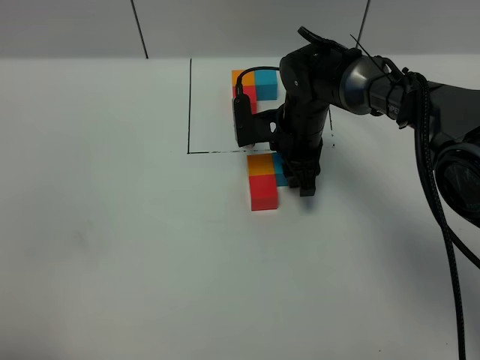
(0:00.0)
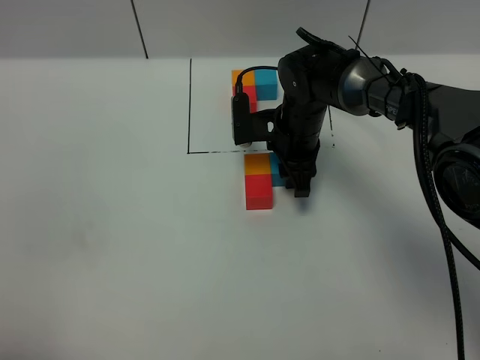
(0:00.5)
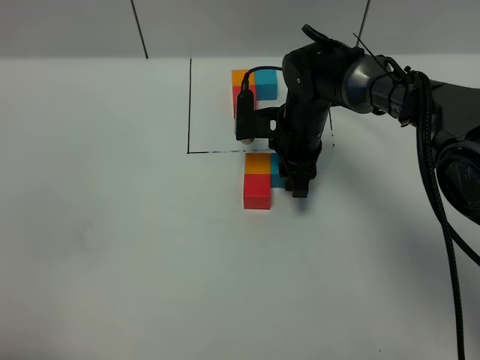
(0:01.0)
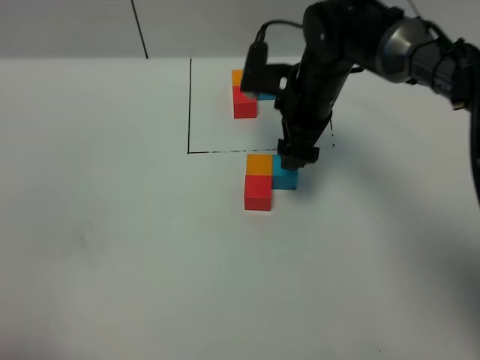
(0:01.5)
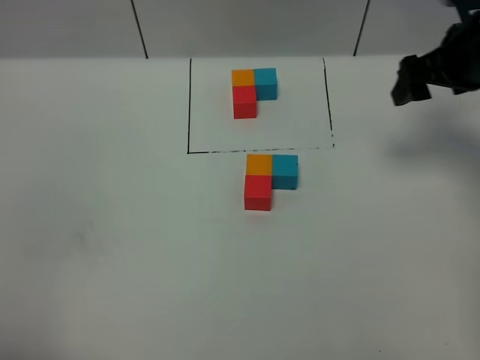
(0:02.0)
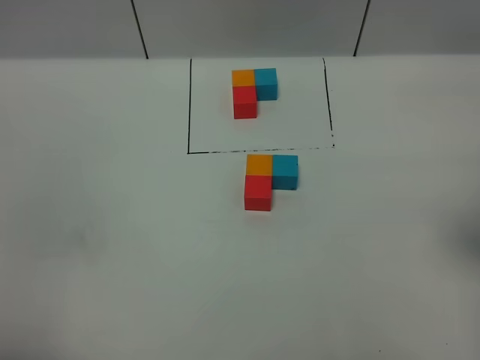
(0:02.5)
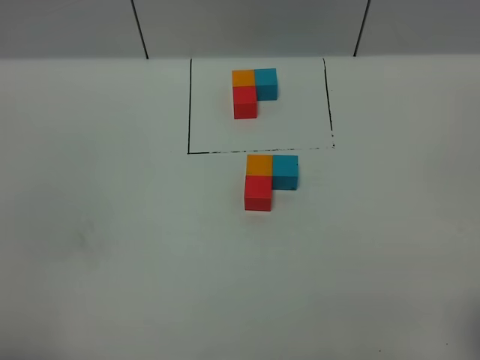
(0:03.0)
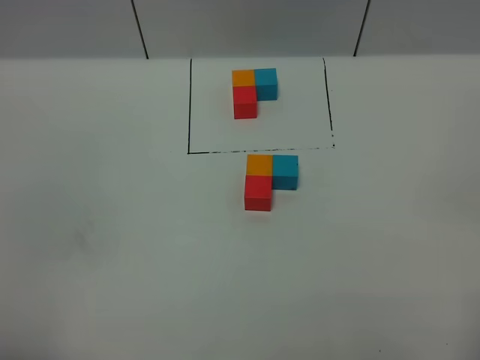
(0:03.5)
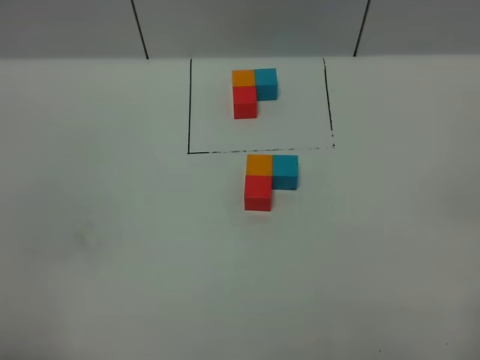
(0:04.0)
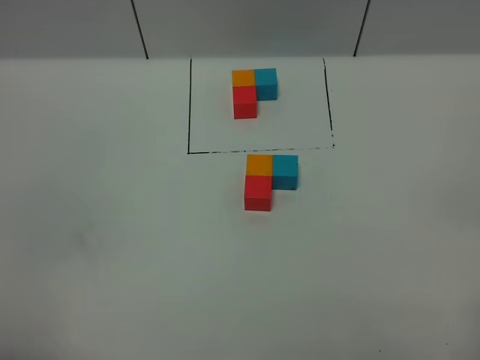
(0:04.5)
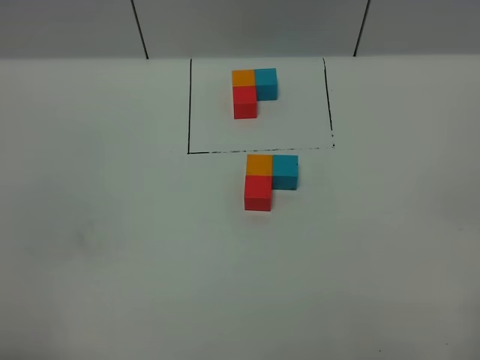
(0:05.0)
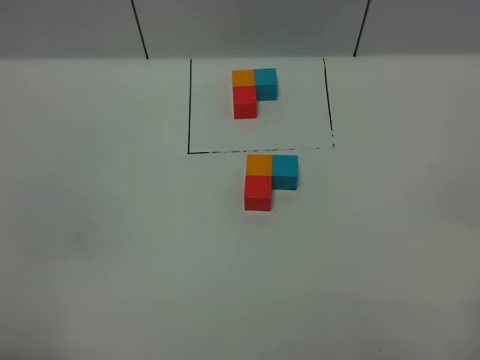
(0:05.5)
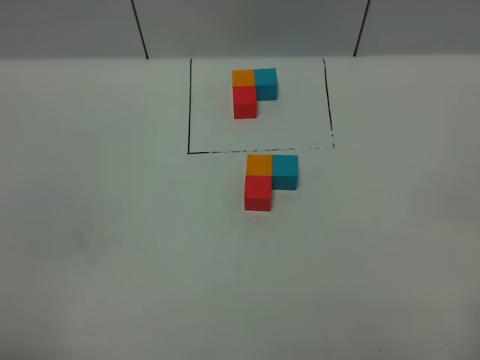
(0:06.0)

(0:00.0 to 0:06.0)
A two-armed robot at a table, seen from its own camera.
Task of the whole recording: According to the building block template in front, assemble the scattered blocks together.
0:00.0 - 0:02.0: The right gripper is displaced to the right and upward by approximately 25 cm, and opens up.
0:02.0 - 0:04.0: The right gripper shifts about 35 cm backward.
0:04.0 - 0:06.0: Both grippers stay about where they are.

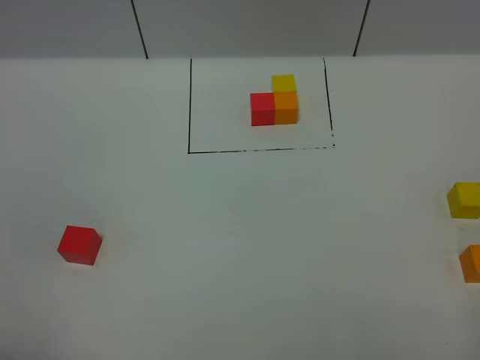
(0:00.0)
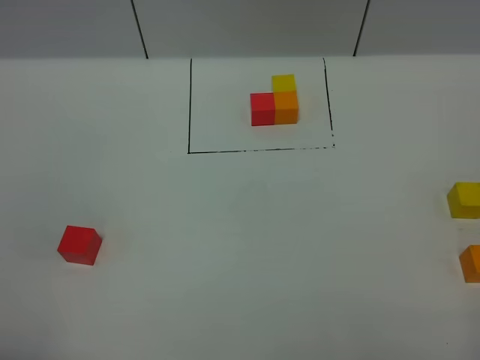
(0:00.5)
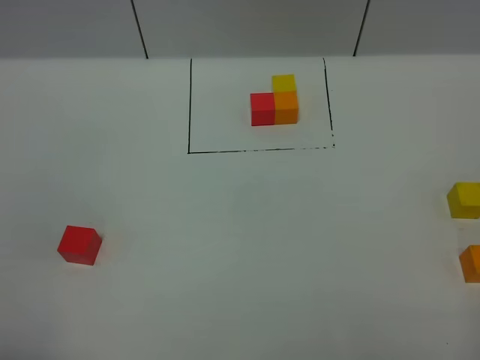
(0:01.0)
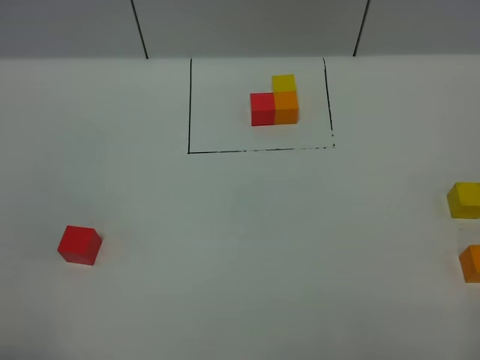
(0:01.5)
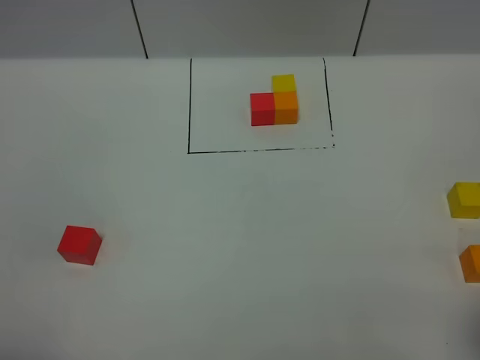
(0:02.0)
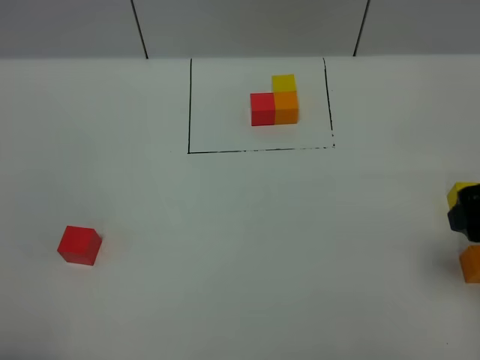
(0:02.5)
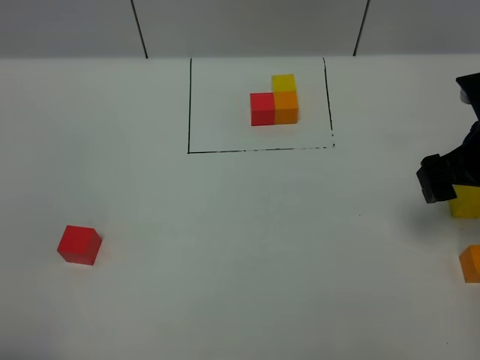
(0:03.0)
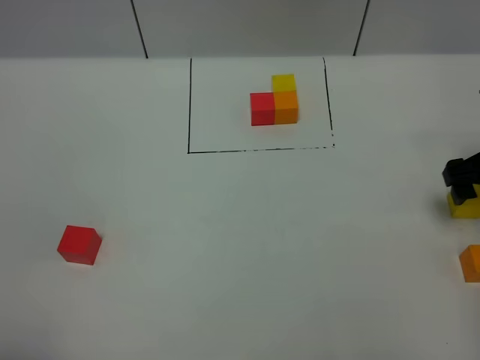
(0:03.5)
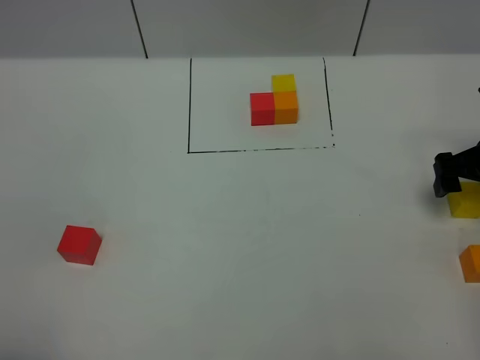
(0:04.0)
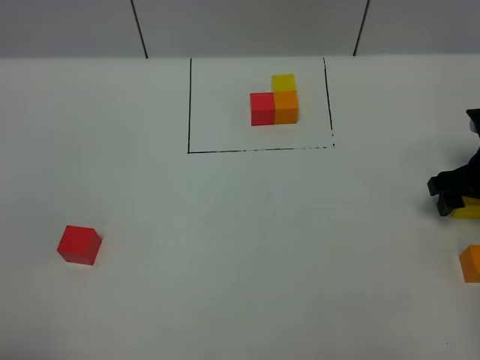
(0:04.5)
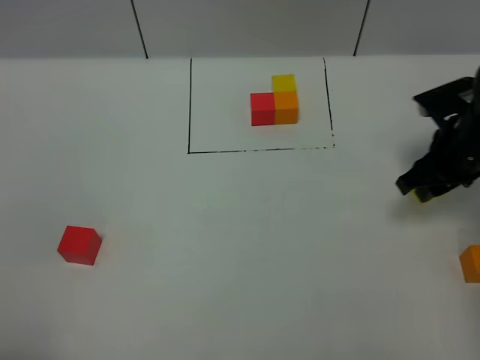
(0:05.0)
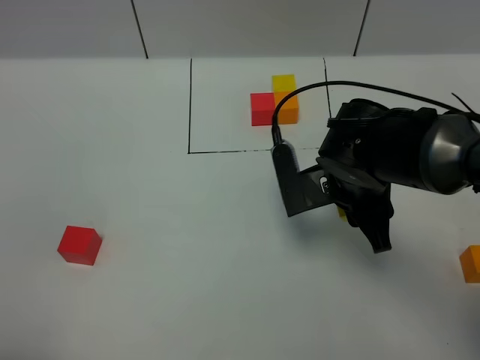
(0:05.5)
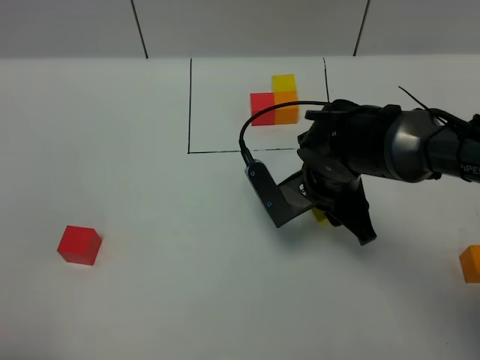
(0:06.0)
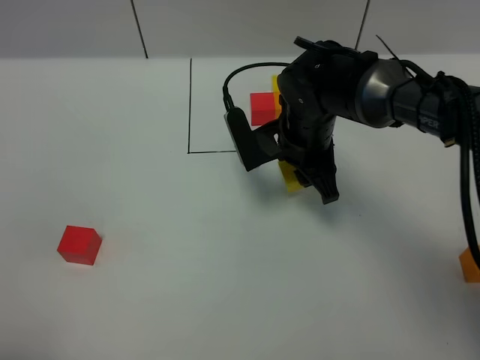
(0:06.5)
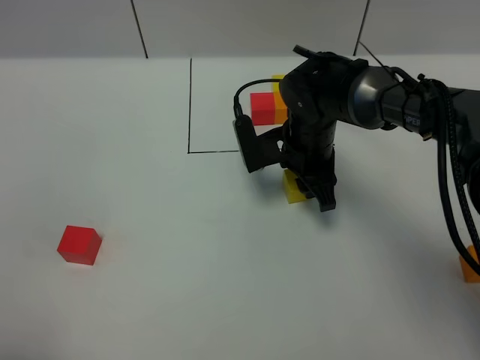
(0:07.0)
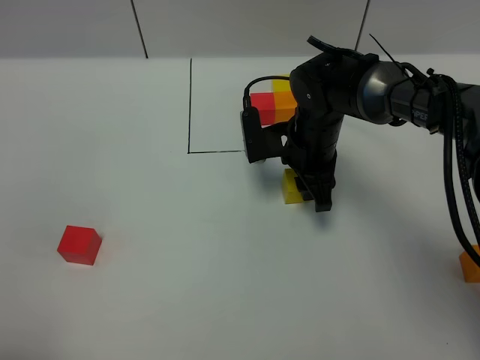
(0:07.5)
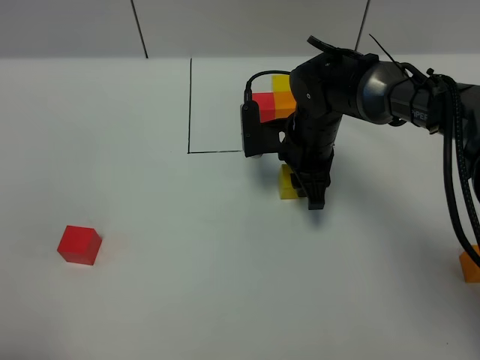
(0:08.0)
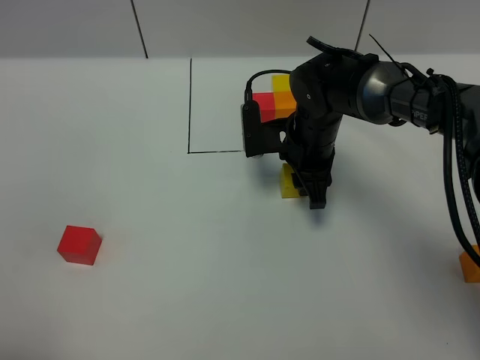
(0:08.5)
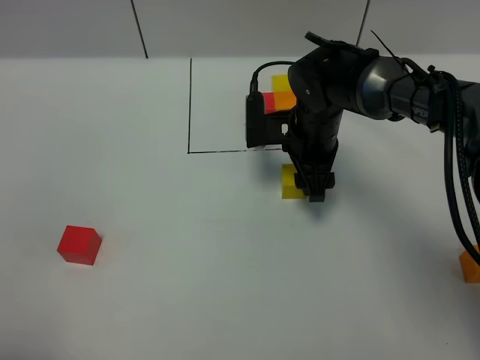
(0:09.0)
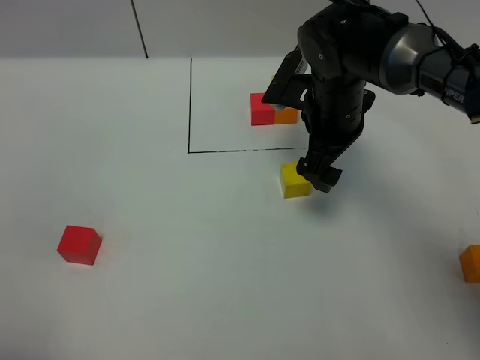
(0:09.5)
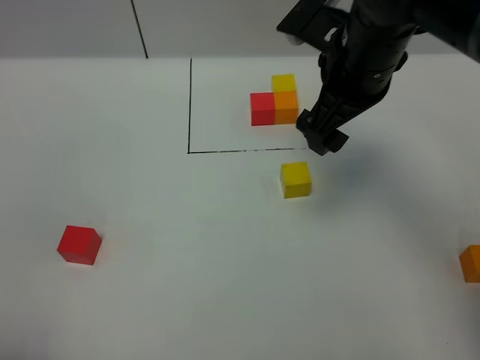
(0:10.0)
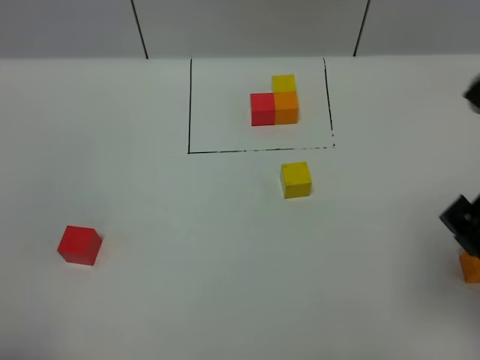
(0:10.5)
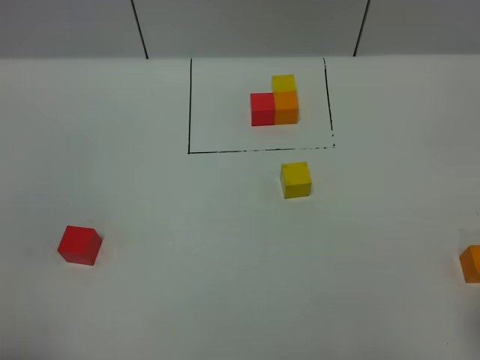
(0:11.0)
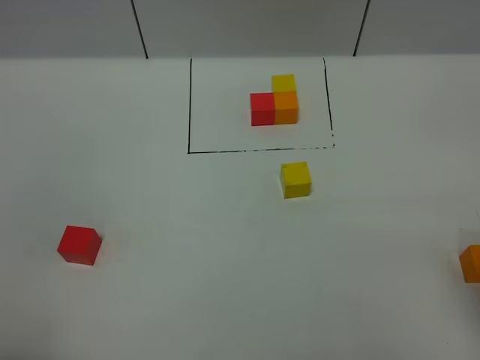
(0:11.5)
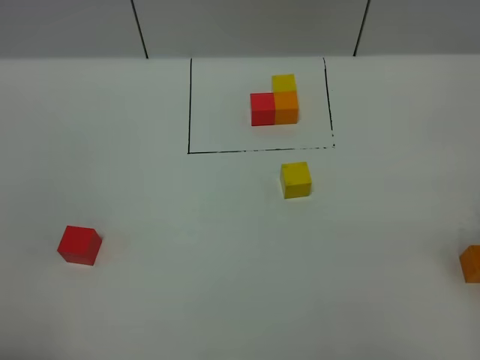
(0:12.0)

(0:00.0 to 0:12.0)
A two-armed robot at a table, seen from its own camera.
Task of the whole recording: According to the building block template in front, assemble the scattered blocks together.
Step, 0:00.0 - 0:08.5: Put the yellow build block in the center of the table.
0:02.0 - 0:04.0: The right gripper is displaced forward and downward by approximately 30 cm.
0:04.0 - 0:06.0: The right gripper heads to the left, covering some 25 cm, and closes.
0:06.0 - 0:08.0: The right gripper heads forward, covering some 10 cm.
0:08.0 - 0:10.0: The right gripper heads upward, covering approximately 15 cm, and opens its fingers.
0:10.0 - 0:12.0: The right gripper heads to the right and backward, covering some 25 cm.

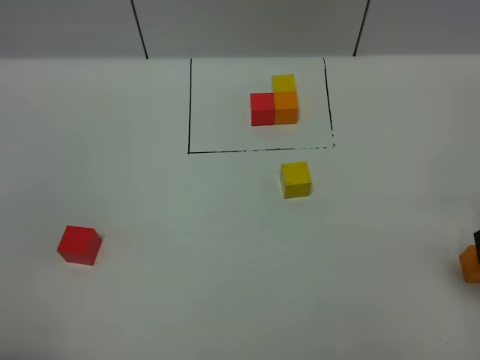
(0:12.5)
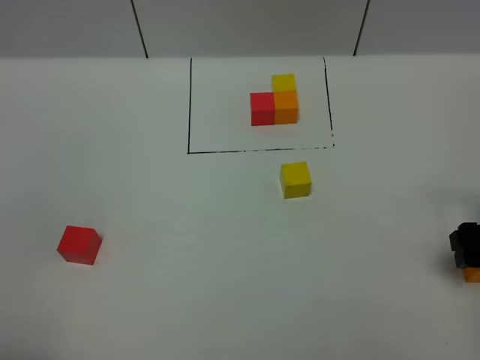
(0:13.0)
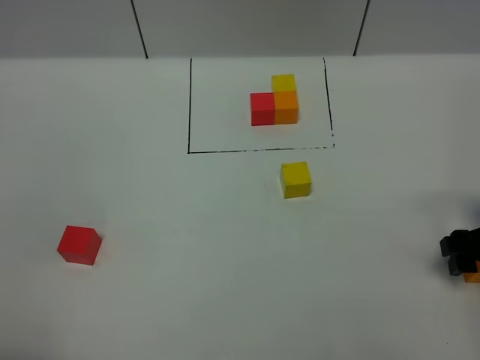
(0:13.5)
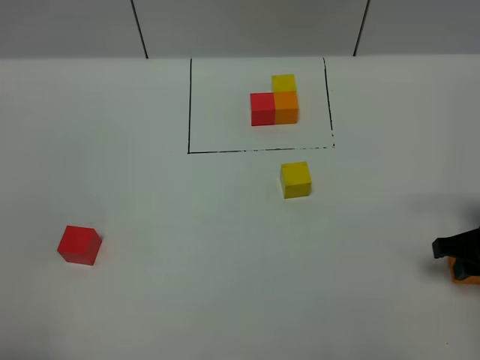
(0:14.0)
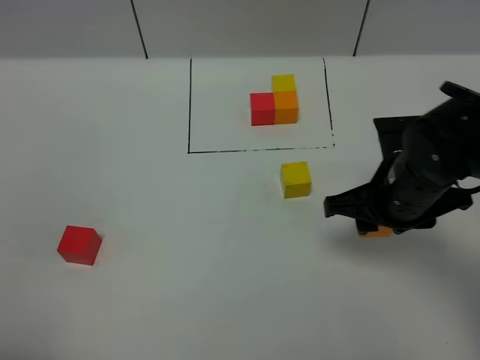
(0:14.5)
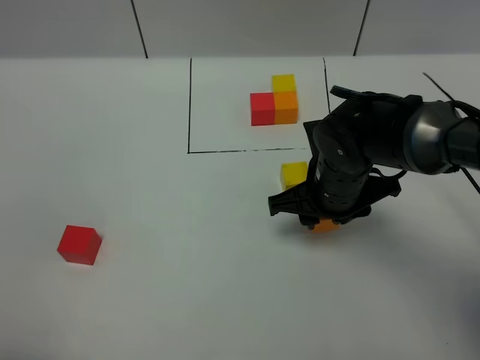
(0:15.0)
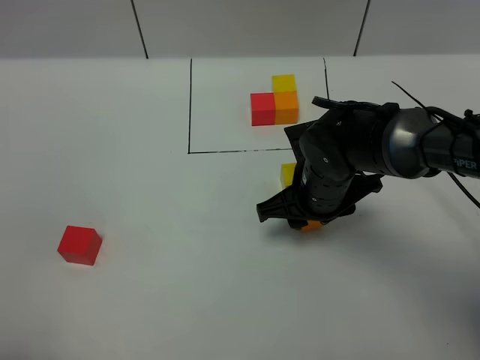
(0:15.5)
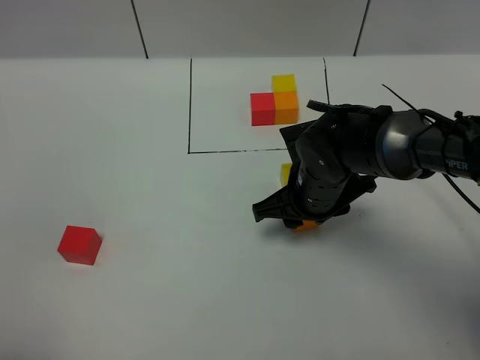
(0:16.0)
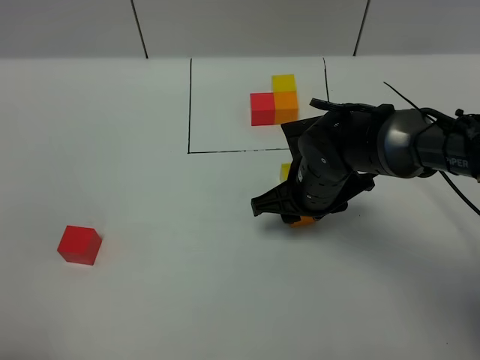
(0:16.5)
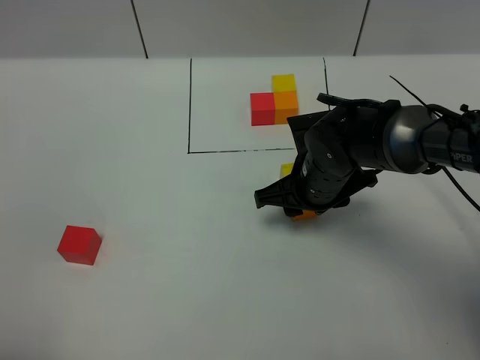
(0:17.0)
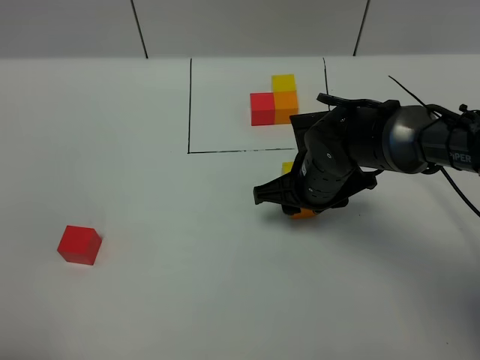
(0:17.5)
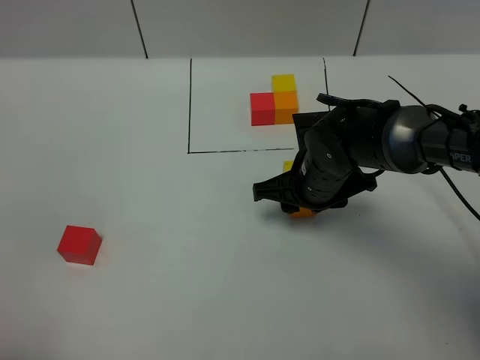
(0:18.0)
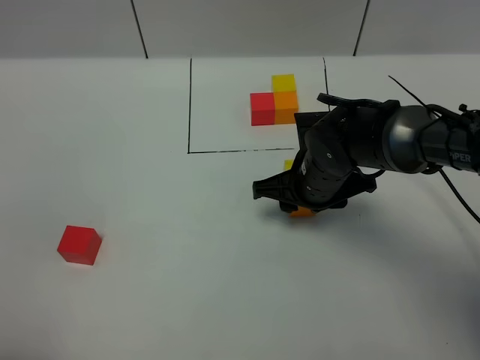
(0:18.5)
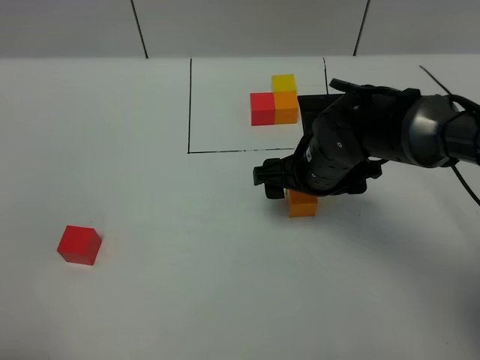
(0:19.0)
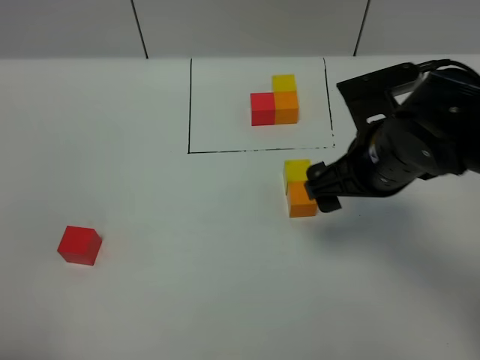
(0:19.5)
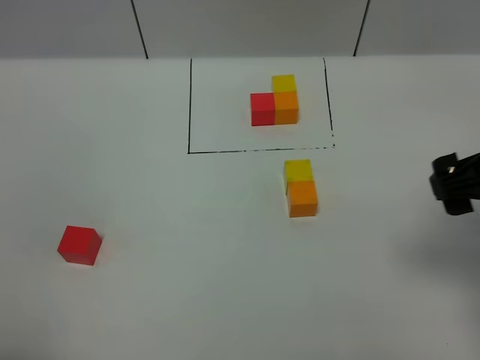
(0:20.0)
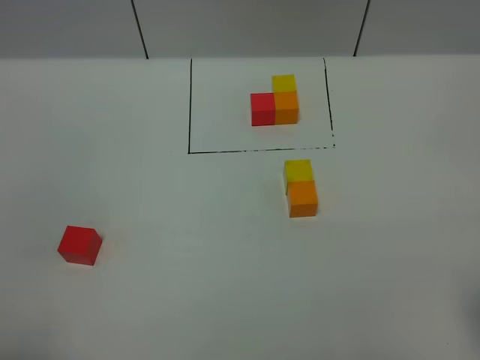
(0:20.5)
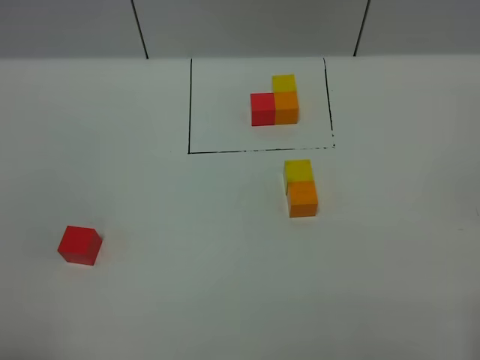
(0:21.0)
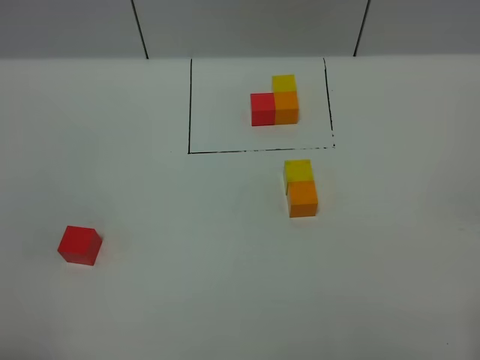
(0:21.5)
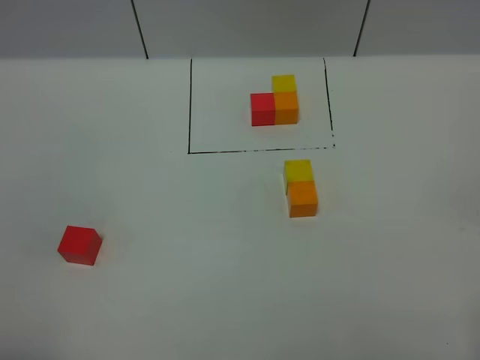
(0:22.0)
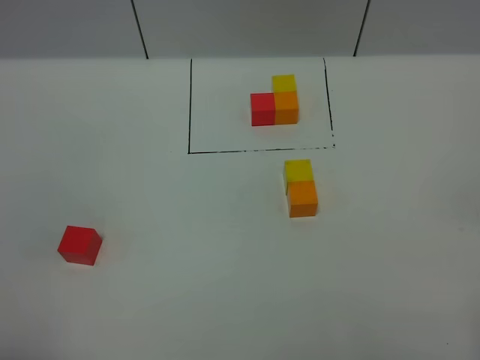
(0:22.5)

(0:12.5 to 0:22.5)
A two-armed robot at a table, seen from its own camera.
Task of the whole recording: According to the building block template in front, assemble the scattered blocks together.
Step, 0:12.5 - 0:18.5: Put the orange build block on the behind of the yellow build block.
0:12.5 - 0:14.5: The right gripper goes approximately 15 cm to the left and forward, and closes.
0:14.5 - 0:16.5: The right gripper moves to the left and downward, roughly 10 cm.
0:16.5 - 0:18.5: The grippers make only small movements.
0:18.5 - 0:20.5: The right gripper goes some 35 cm backward, to the right and upward, and opens its fingers.
